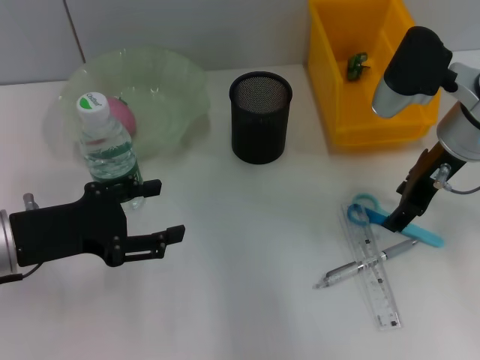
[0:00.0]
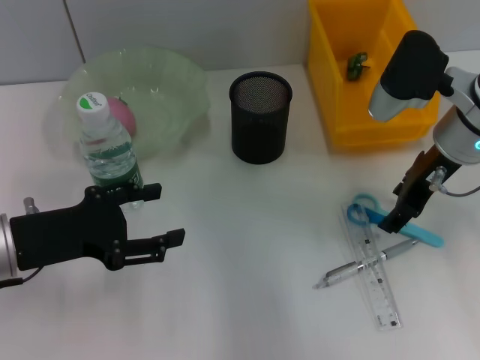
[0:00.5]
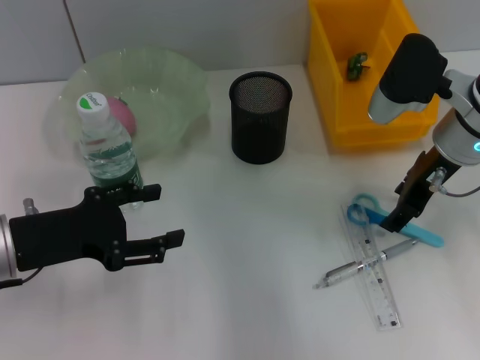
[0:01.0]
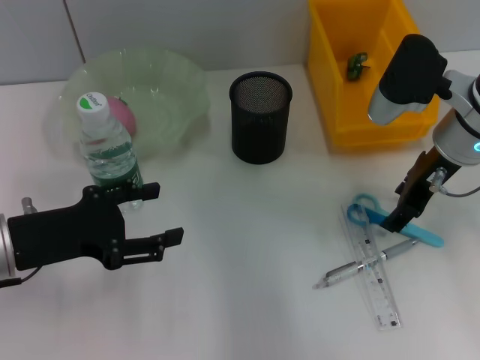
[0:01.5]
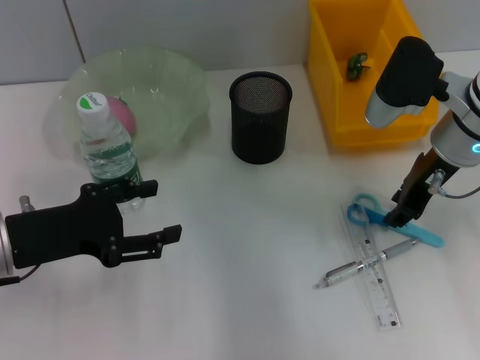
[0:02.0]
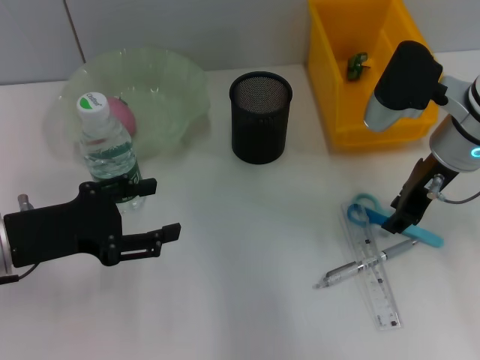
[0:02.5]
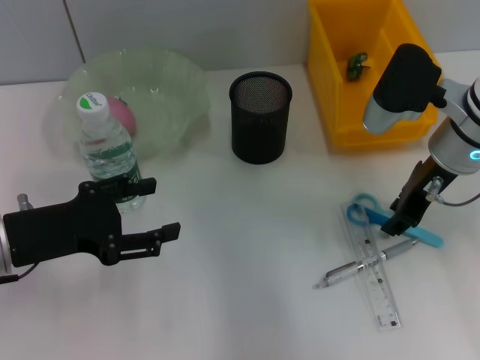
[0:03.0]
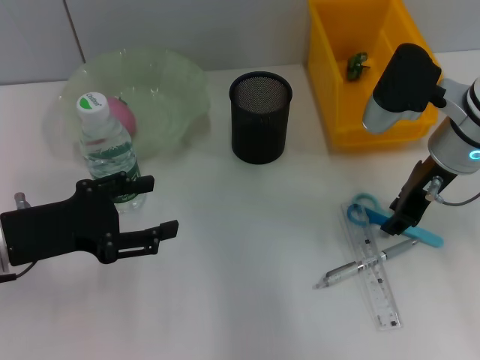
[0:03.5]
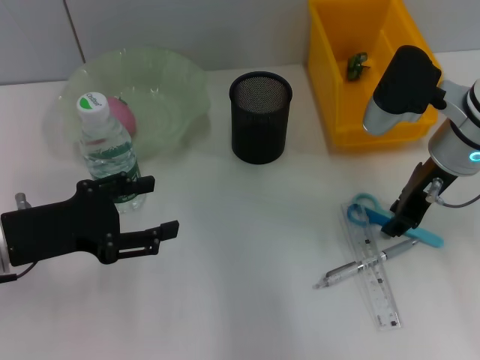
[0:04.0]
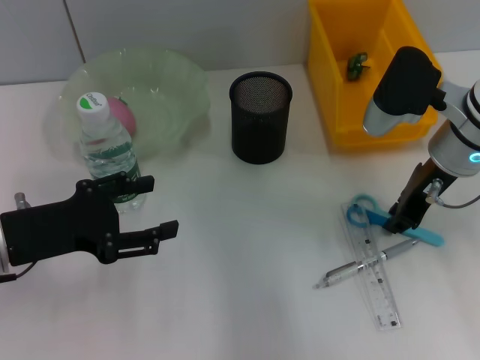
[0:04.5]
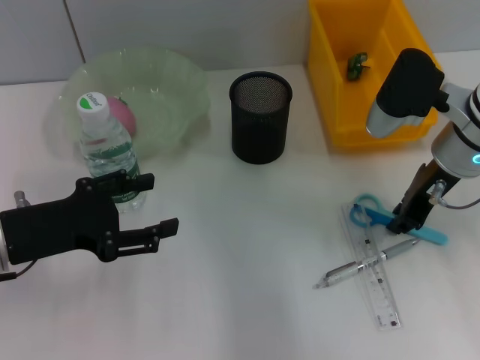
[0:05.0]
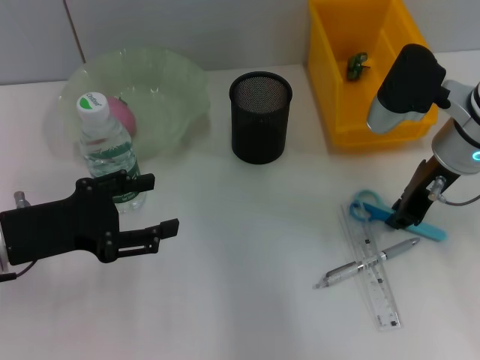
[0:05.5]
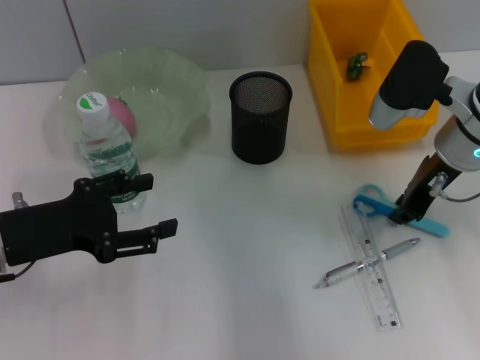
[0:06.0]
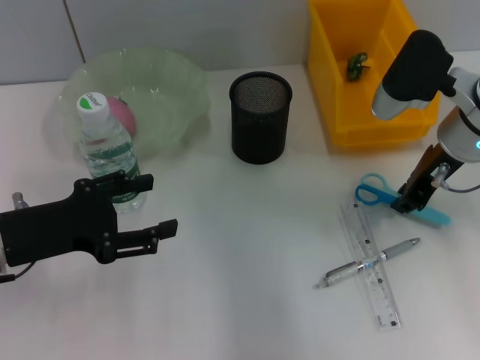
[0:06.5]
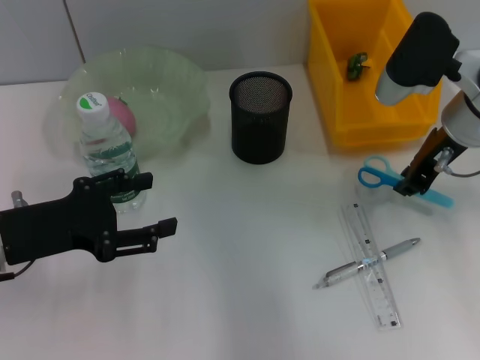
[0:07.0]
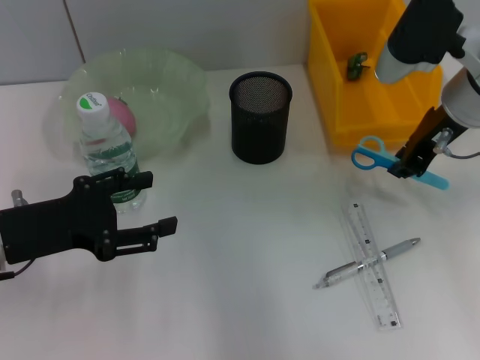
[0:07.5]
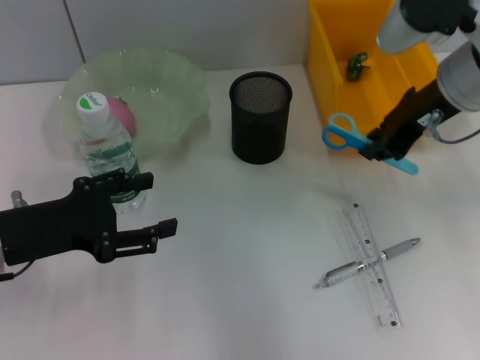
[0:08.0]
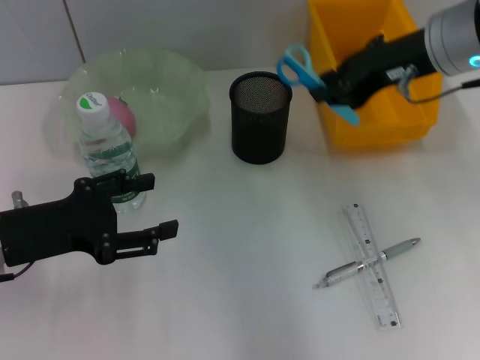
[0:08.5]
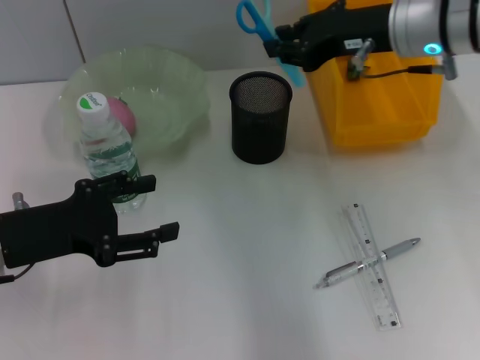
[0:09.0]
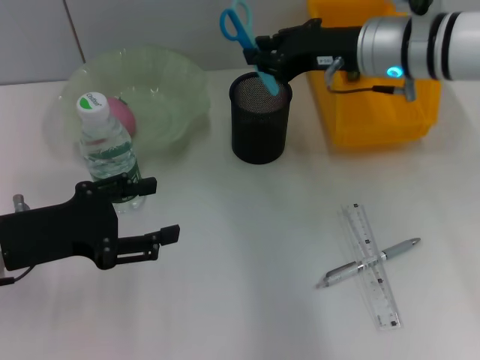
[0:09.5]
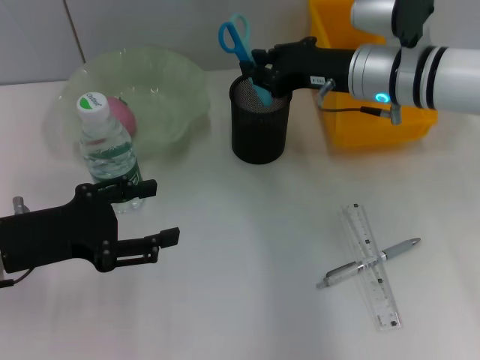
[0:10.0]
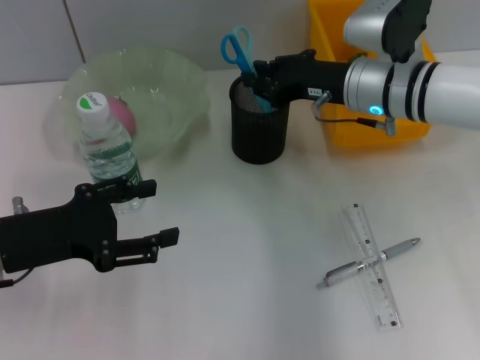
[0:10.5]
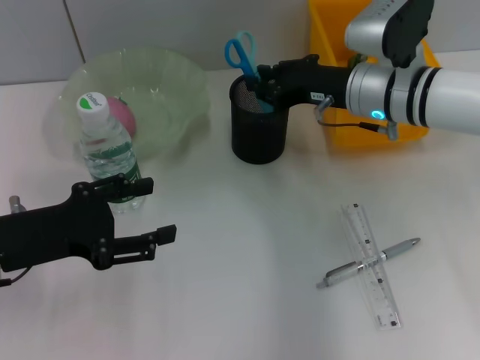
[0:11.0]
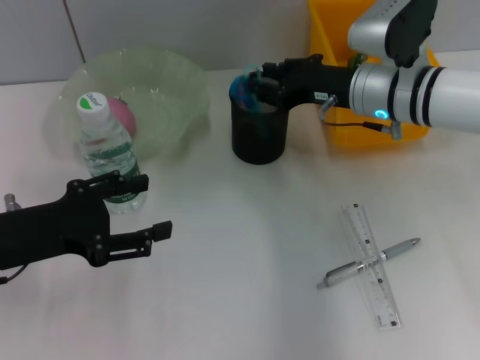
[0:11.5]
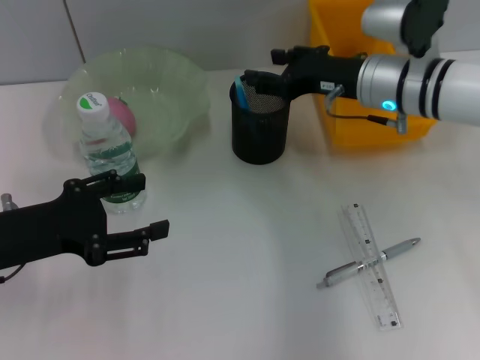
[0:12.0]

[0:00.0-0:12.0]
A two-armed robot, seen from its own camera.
Step, 0:00.0 to 0:04.5: Grab the blue scissors with the right hand.
Step, 0:05.5 to 0:11.5: Place the blue scissors into the pen holder with the right hand.
0:00.0 to 0:02.0: The right gripper closes.
0:02.0 to 0:06.0: Both grippers stay about where they are.
0:06.0 to 0:08.0: The right gripper moves upward, about 10 cm.
0:08.0 to 0:10.0: The right gripper travels downward by about 10 cm.
0:10.0 to 0:12.0: The right gripper opens up.

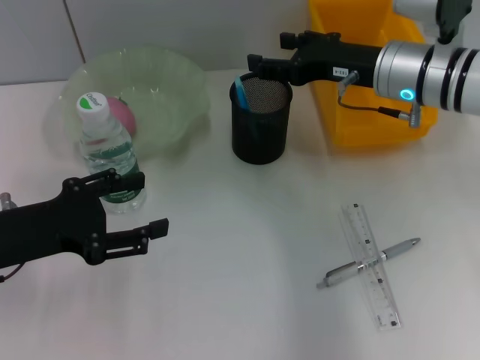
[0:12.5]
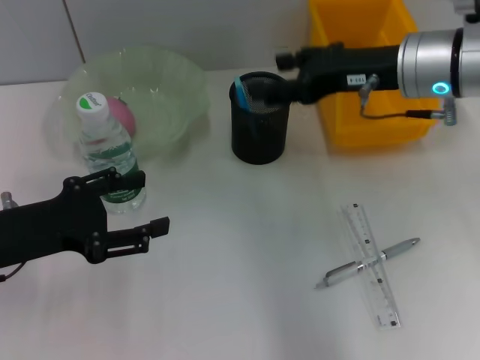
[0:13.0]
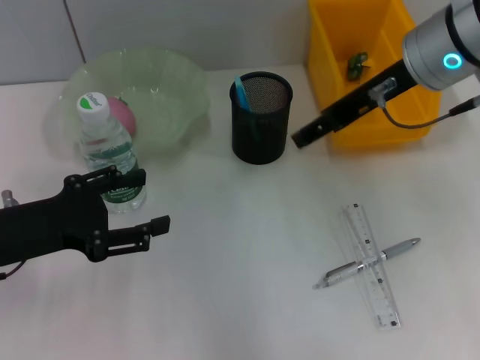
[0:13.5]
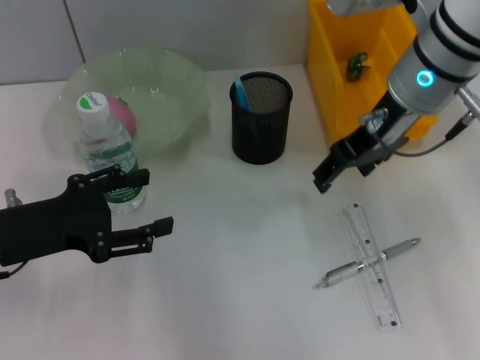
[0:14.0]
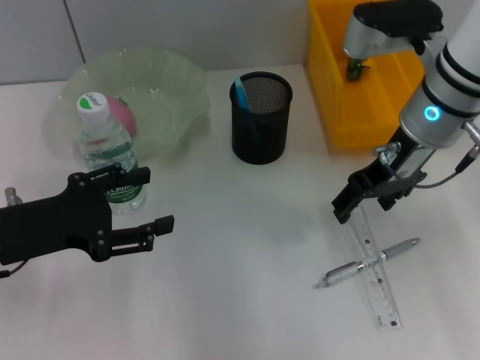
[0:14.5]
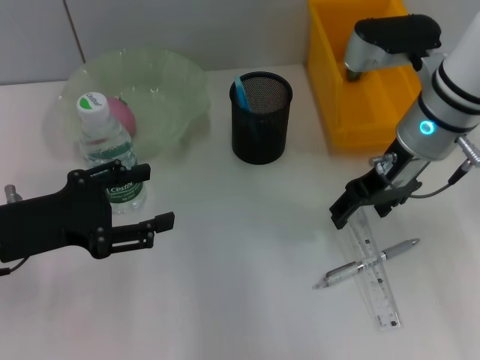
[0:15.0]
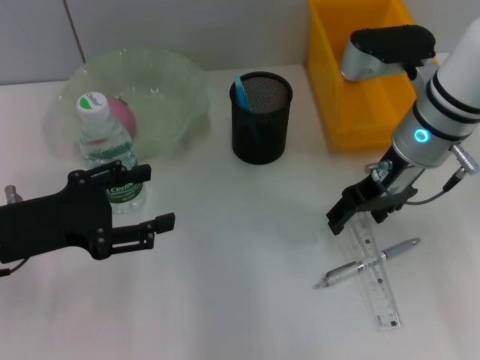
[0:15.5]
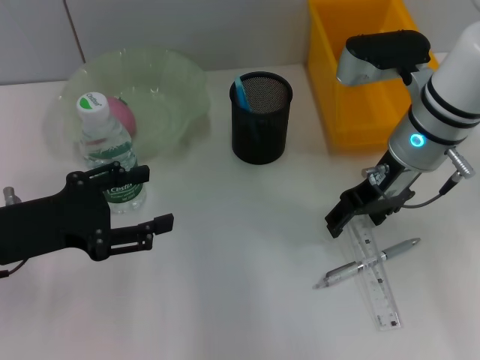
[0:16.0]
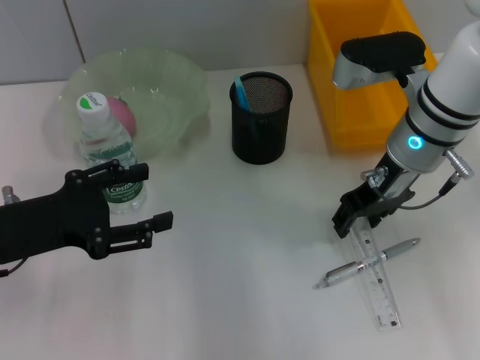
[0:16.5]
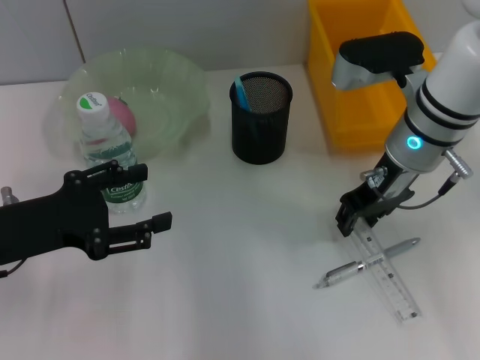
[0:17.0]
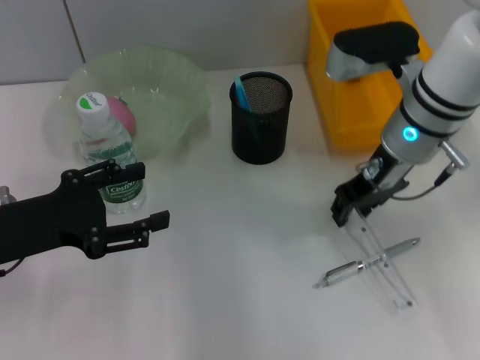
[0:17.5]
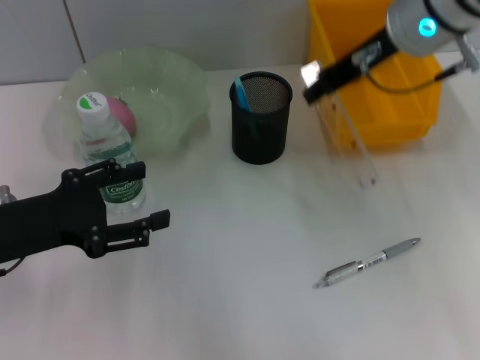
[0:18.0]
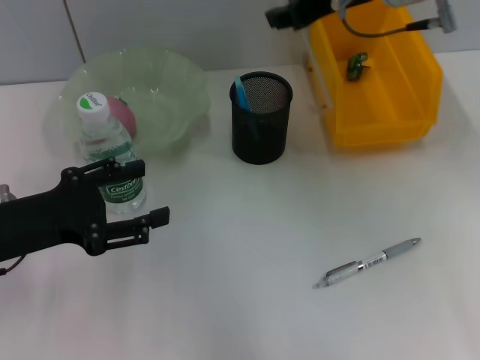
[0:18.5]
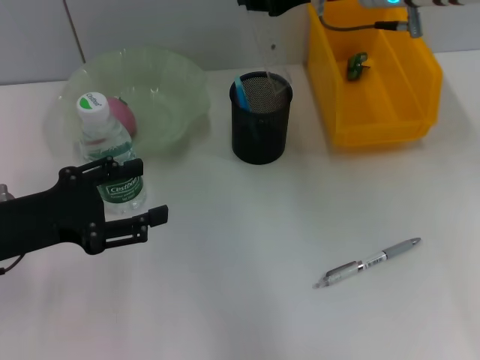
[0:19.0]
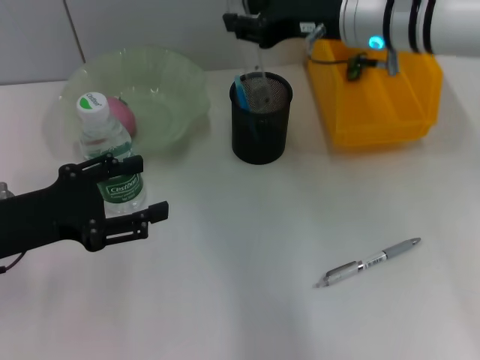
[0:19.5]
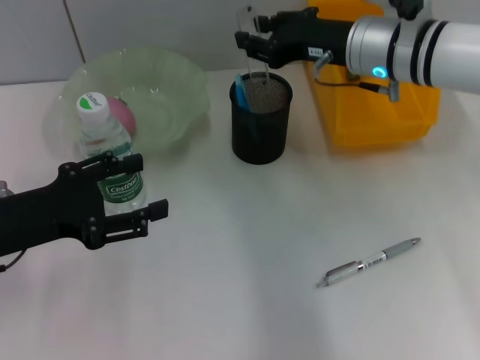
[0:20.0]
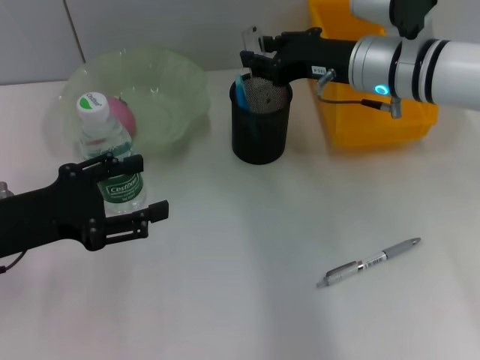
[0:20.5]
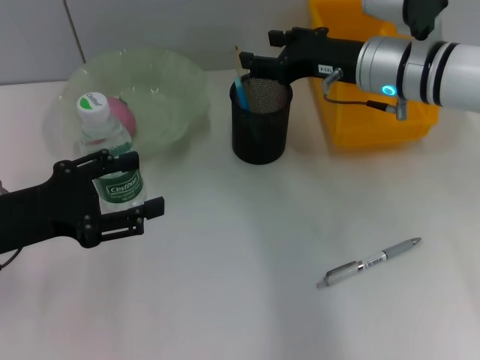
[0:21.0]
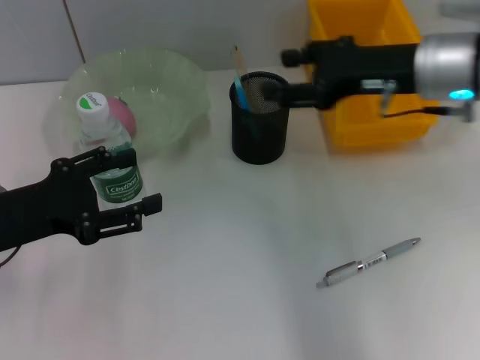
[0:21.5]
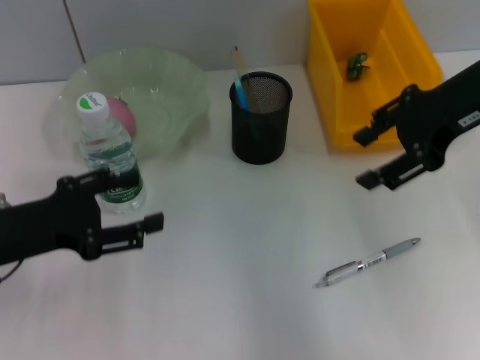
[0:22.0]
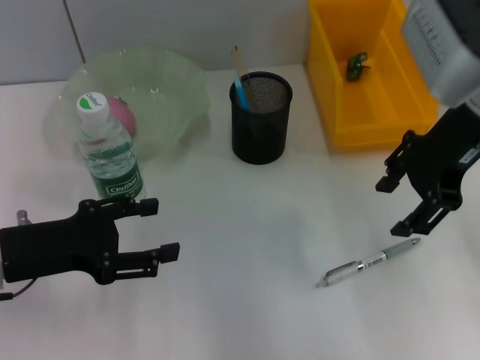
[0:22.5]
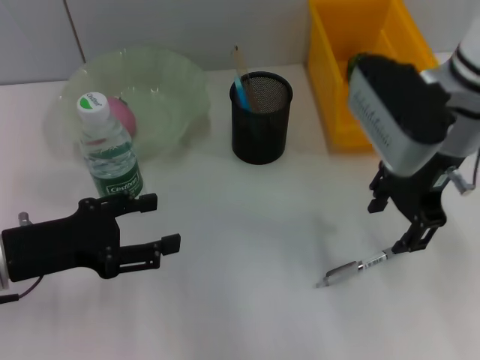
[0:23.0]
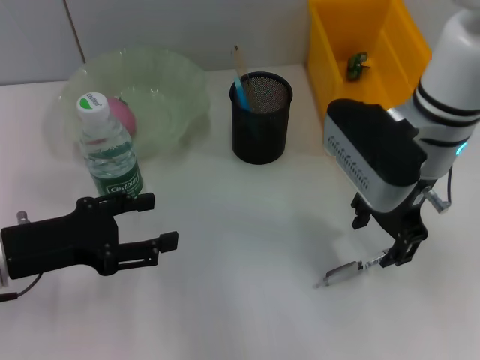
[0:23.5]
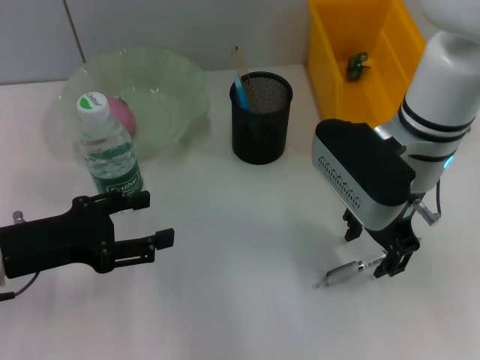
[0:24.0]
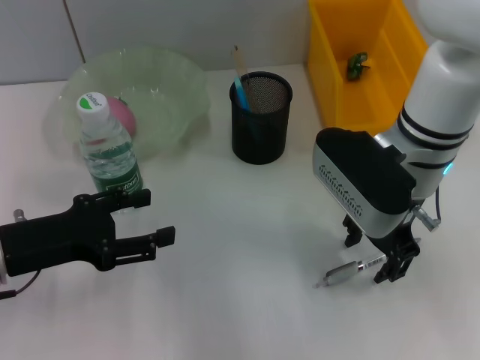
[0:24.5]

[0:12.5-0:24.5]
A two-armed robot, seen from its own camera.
Step, 0:12.5 to 0:17.0: Grab the ruler with the right hand.
Step, 0:17.5 to 0:20.5: Place the ruler into the pen holder with the right hand.
0:14.5 to 0:16.5: The grippers move only a little.
0:16.5 to 0:18.5: The right gripper moves upward, approximately 15 cm, and closes its fingers.
0:18.5 to 0:20.5: The right gripper shifts approximately 10 cm downward.
0:20.5 to 0:22.5: The right gripper travels upward and backward by roughly 10 cm.
0:22.5 to 0:24.5: The right gripper is displaced downward and to the left by some 10 cm.

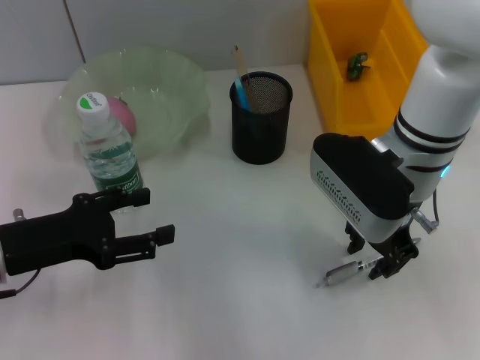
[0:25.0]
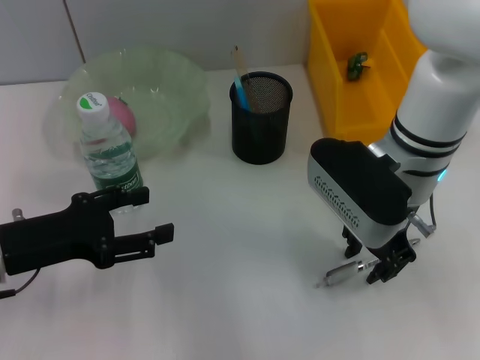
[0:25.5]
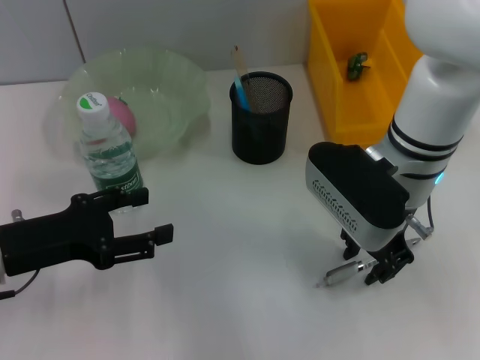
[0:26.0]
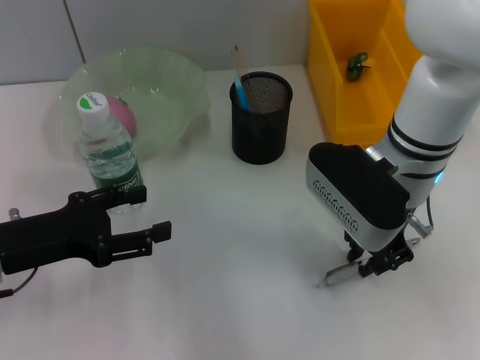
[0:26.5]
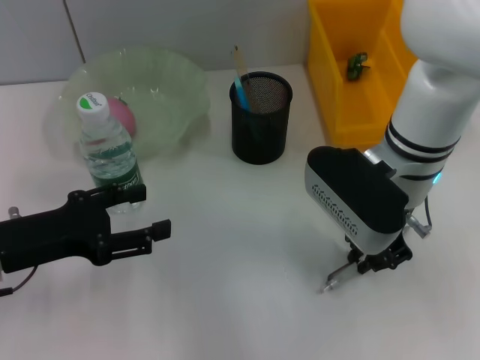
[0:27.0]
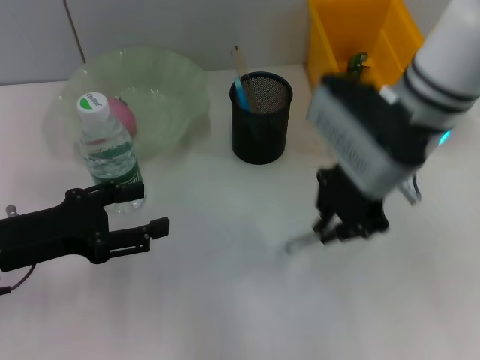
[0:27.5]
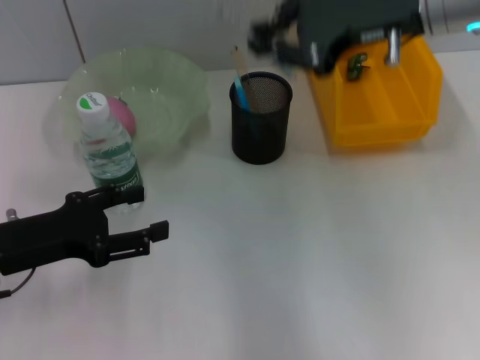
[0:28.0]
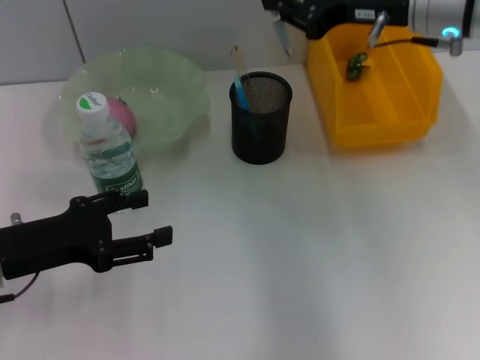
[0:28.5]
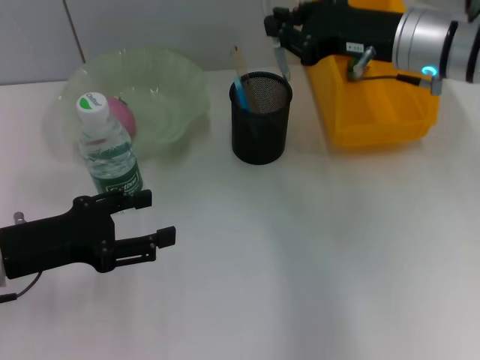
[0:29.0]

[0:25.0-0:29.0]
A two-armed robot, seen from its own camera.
0:25.0 to 0:27.0: The right gripper closes its fingers.
0:27.0 to 0:29.0: The right gripper travels to the right and forward by roughly 10 cm, and reaches about 15 cm upward, then returns.
